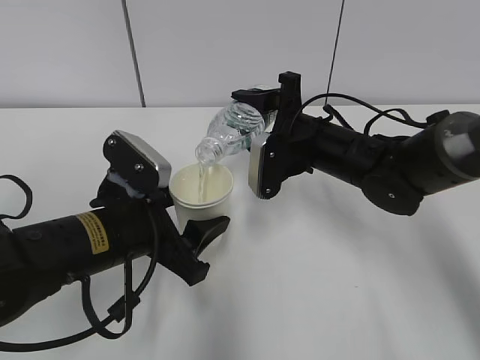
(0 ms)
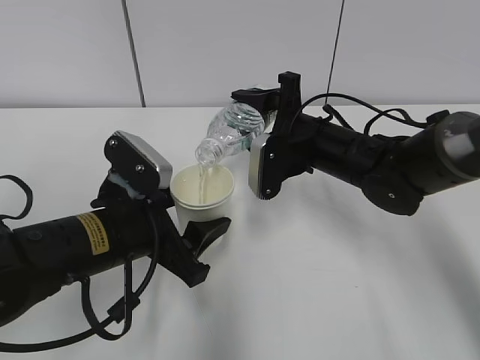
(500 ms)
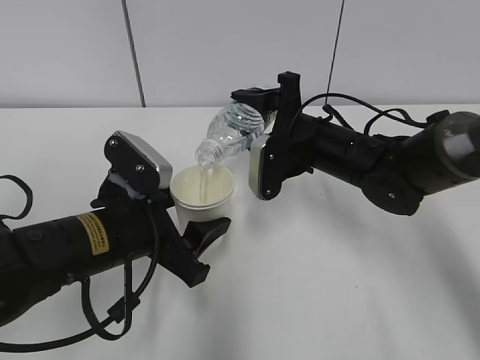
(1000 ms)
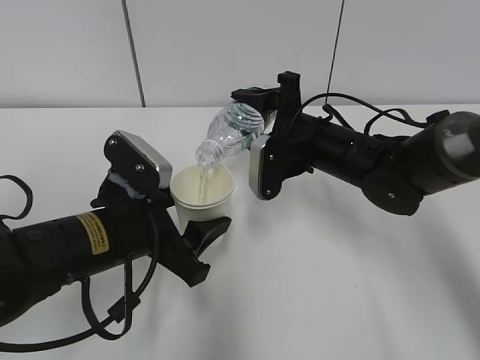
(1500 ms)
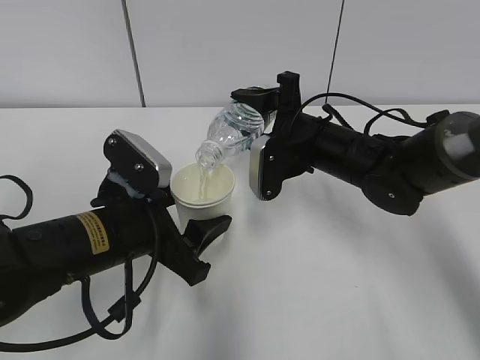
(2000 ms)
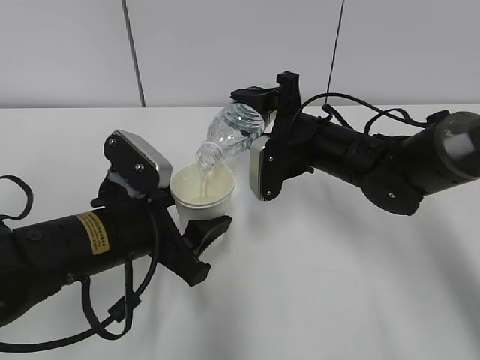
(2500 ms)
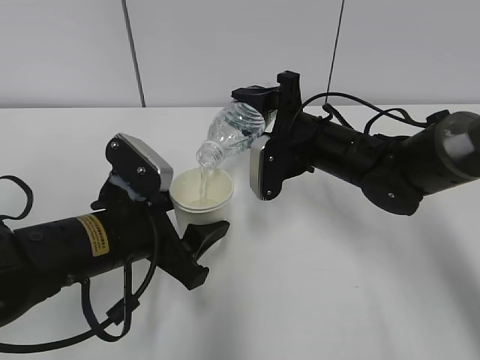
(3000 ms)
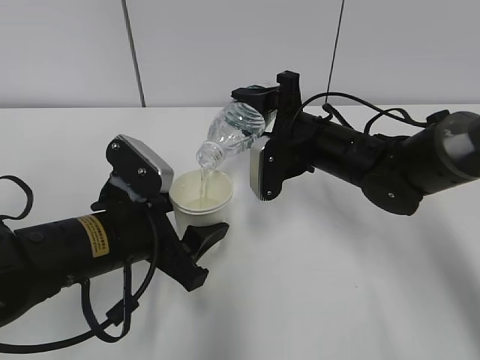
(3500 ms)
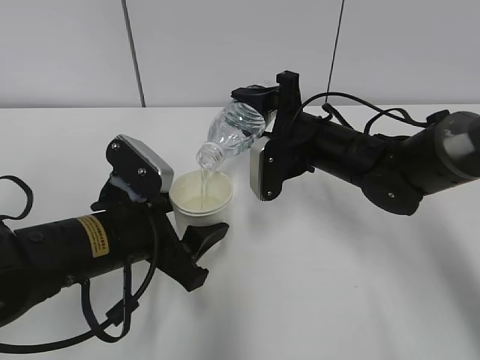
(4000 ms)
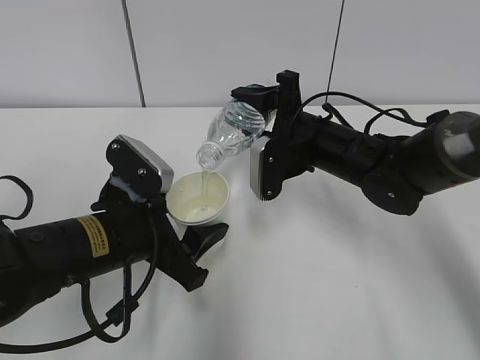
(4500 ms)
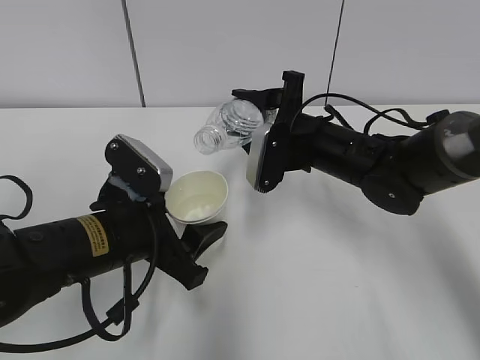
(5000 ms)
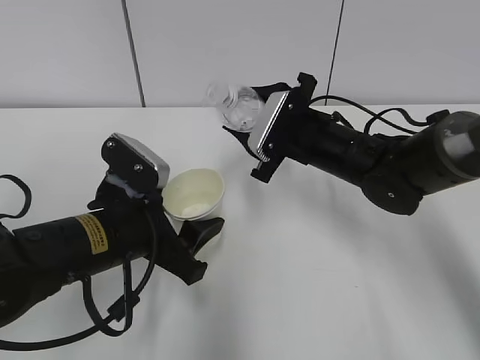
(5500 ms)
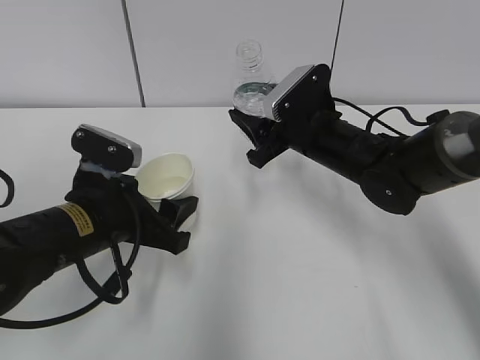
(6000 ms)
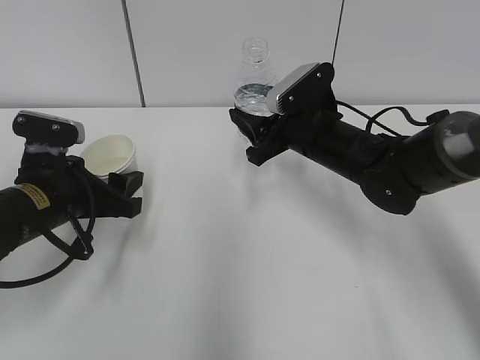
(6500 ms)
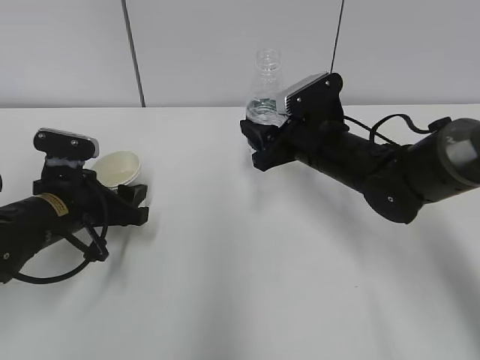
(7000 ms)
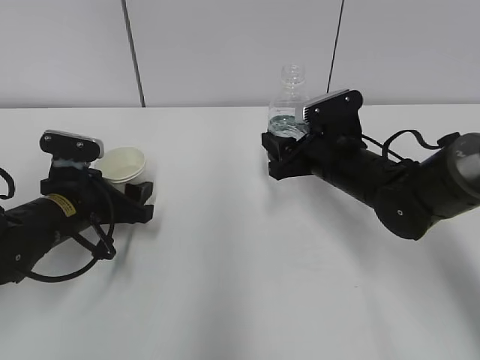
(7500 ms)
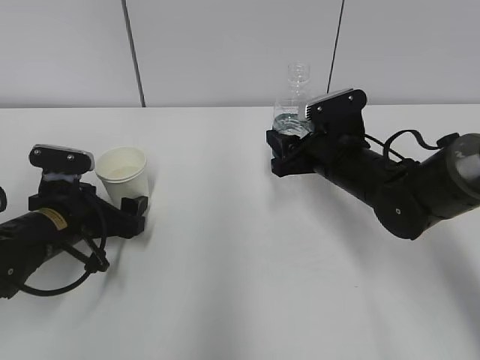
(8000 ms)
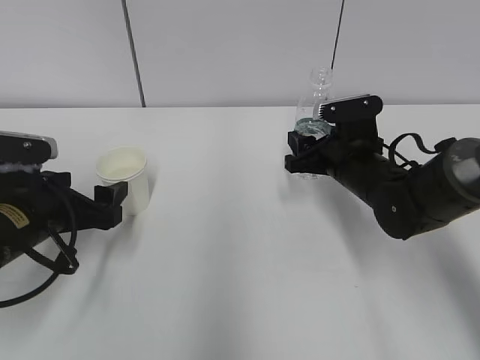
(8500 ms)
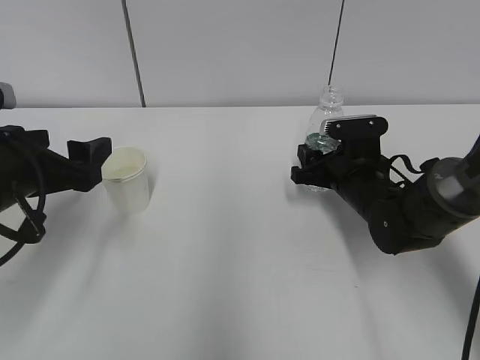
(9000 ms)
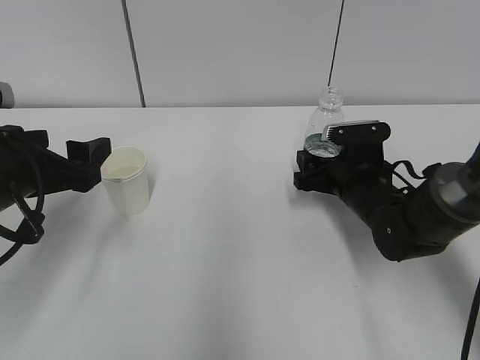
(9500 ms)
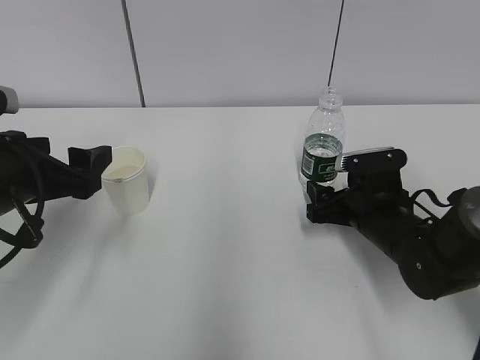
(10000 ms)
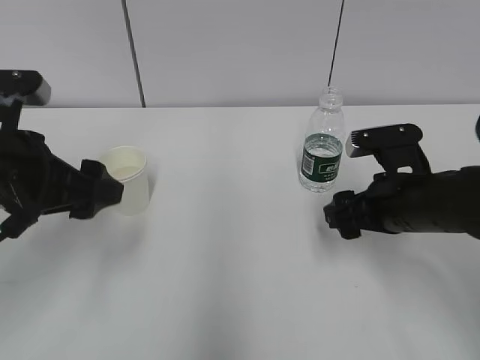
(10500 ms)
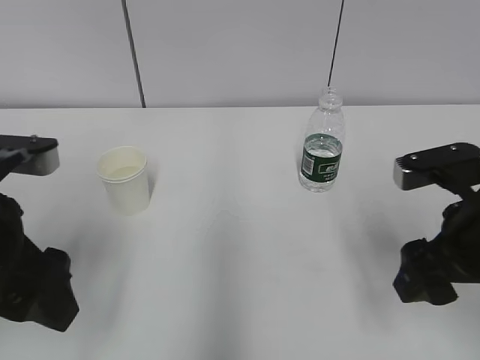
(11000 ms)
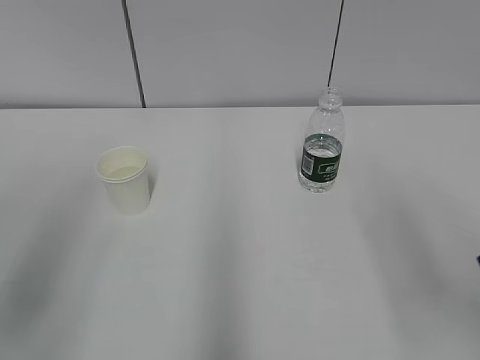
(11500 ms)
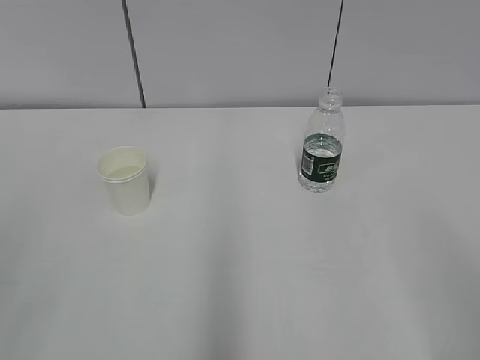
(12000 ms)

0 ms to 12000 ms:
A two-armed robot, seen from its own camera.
Step, 2500 ms to 3000 ms: Place the paper cup with the left hand.
0 ms to 2000 ms: Both grippers stay about where they are.
2000 ms to 4000 ms: The two grippers keep their place.
6000 ms to 8000 ms: The left gripper is displaced to the left, downward and forward by some 10 cm, and opens.
8000 ms to 10000 ms: The right gripper heads downward, covering approximately 5 cm, and opens up. Meanwhile the left gripper goes about 10 cm upward and backward.
10000 ms to 12000 ms: The left gripper moves backward, some 25 cm. The right gripper travels backward and upward by some 35 cm.

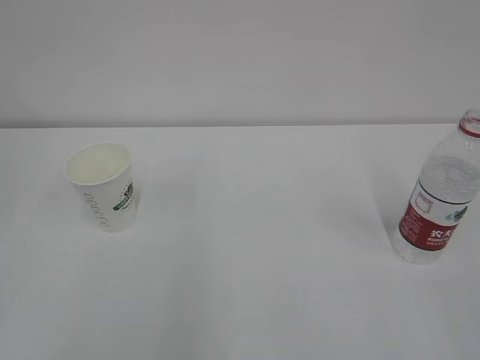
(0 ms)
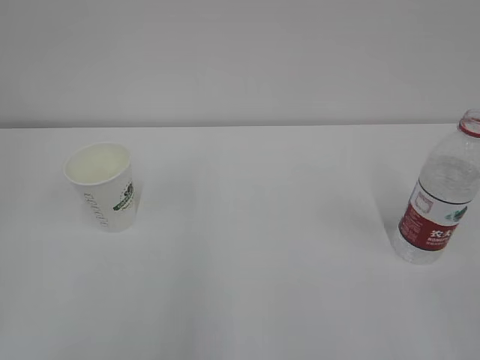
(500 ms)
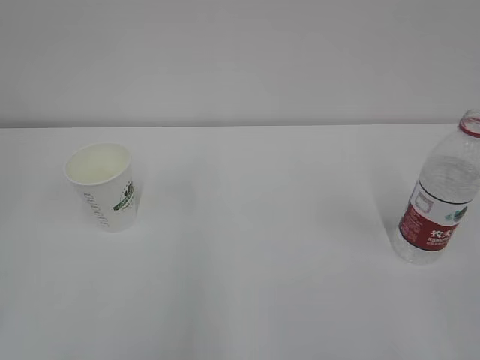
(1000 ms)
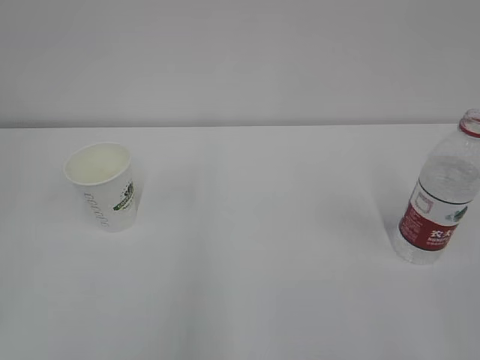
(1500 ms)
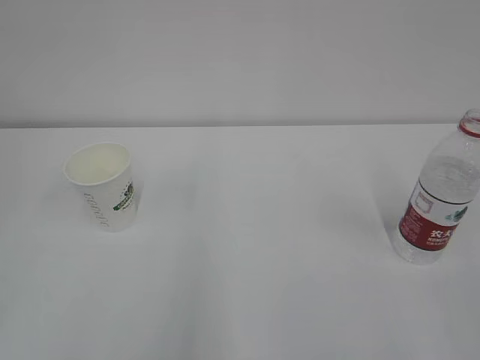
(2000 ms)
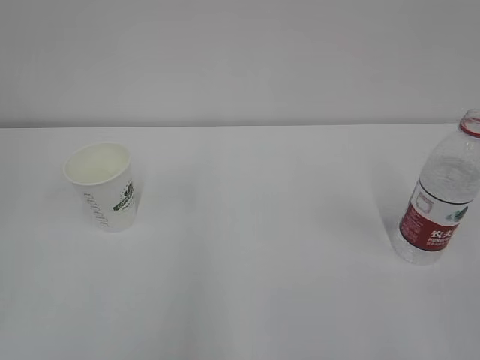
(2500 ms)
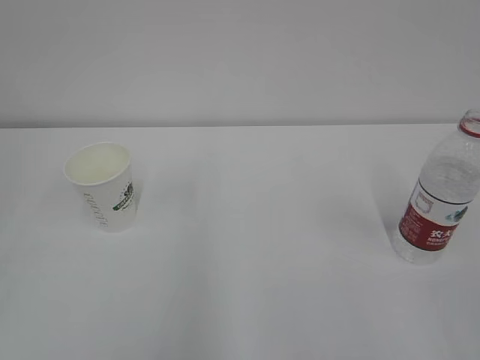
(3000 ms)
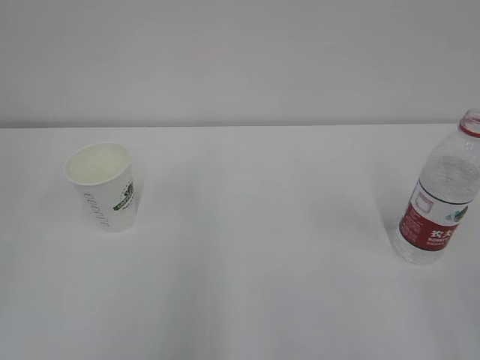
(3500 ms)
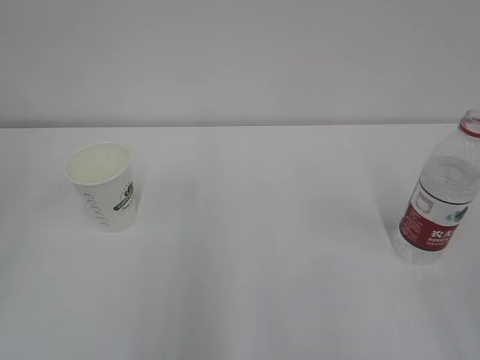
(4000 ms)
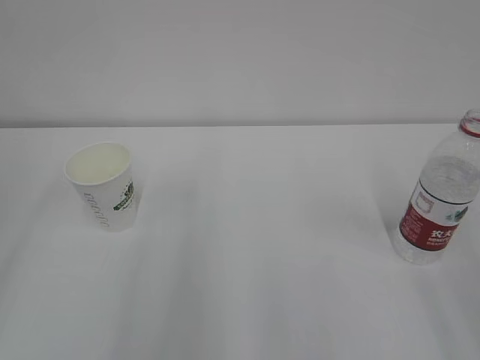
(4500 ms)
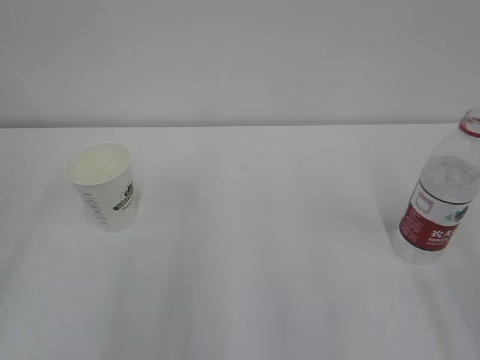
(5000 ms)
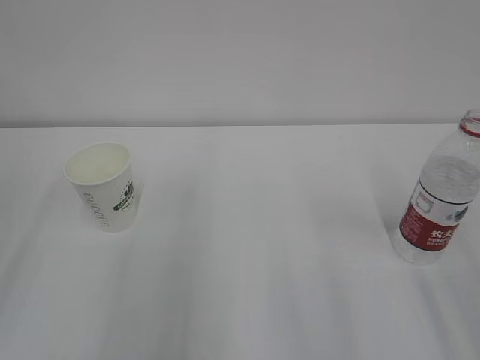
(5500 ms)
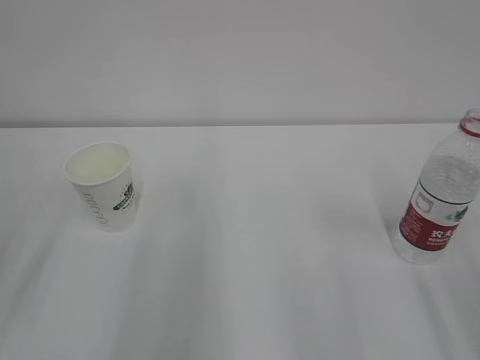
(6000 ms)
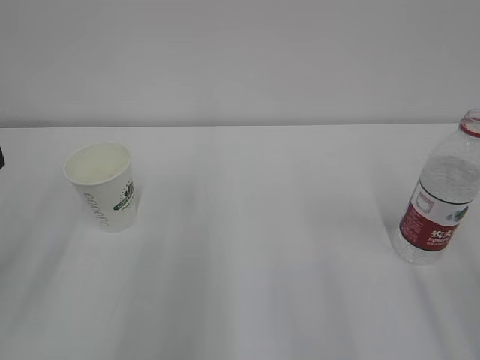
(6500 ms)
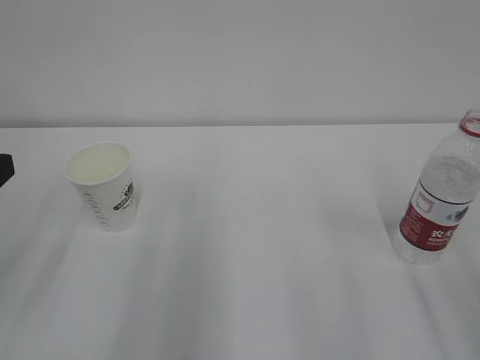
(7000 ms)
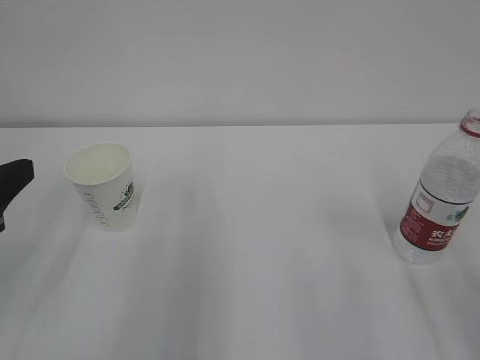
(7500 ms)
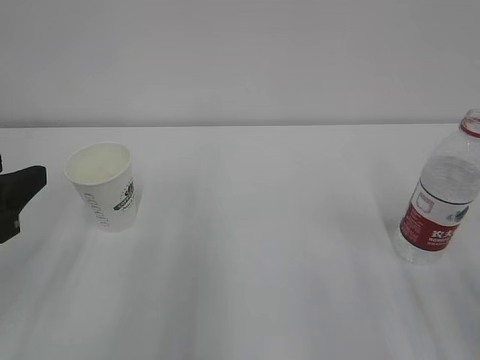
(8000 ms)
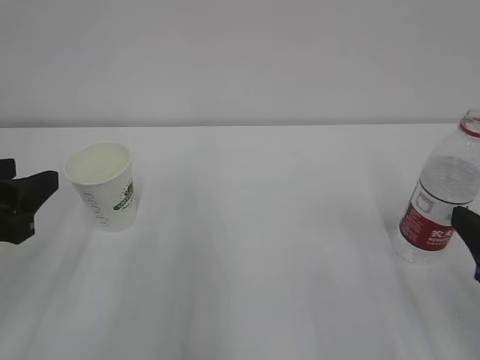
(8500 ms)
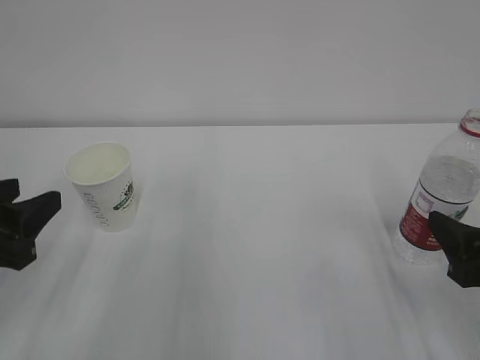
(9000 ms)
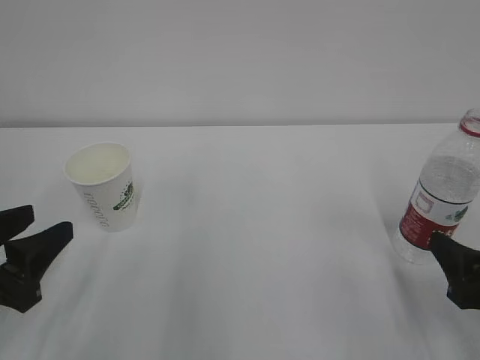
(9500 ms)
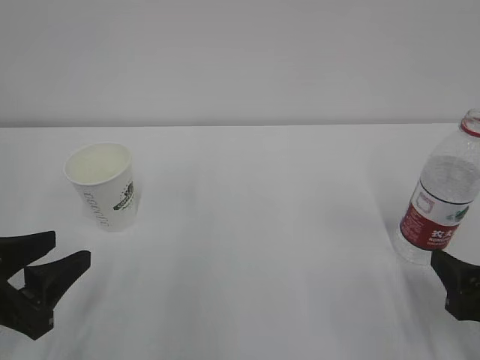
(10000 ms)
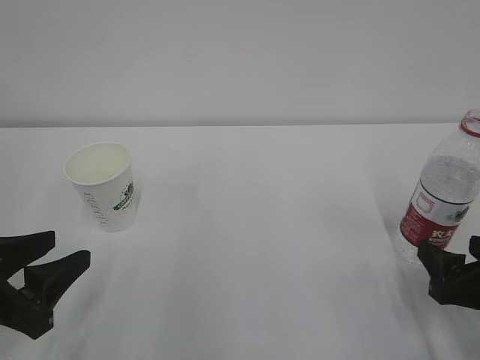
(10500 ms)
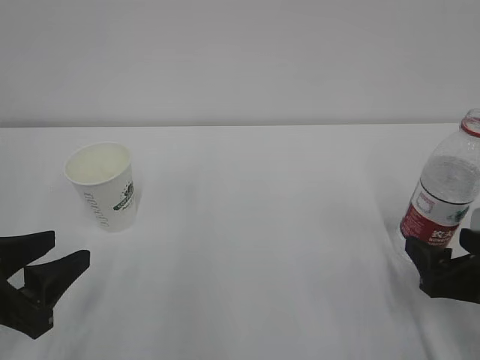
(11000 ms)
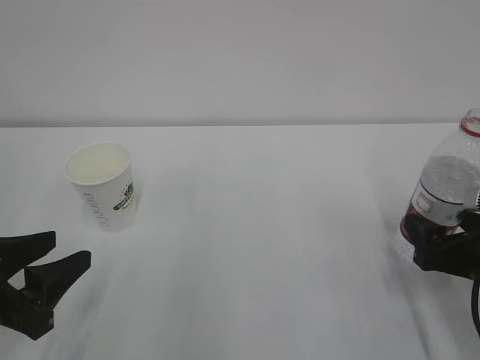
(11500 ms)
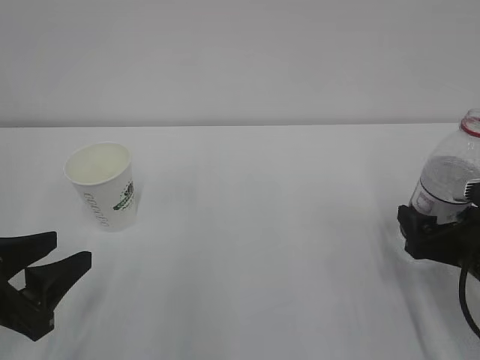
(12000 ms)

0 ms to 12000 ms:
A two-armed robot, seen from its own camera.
6000 ms to 8000 ms: The left gripper moves approximately 5 cm.
8000 ms to 10000 ms: Both grippers move downward, approximately 10 cm.
10000 ms to 12000 ms: The right gripper moves forward, about 10 cm.

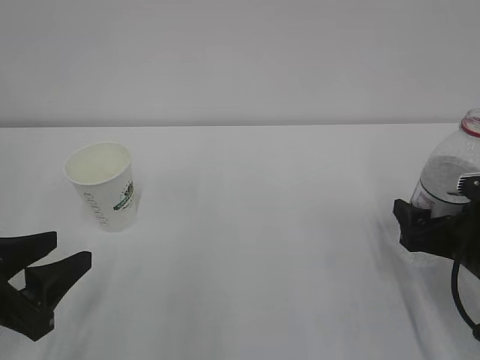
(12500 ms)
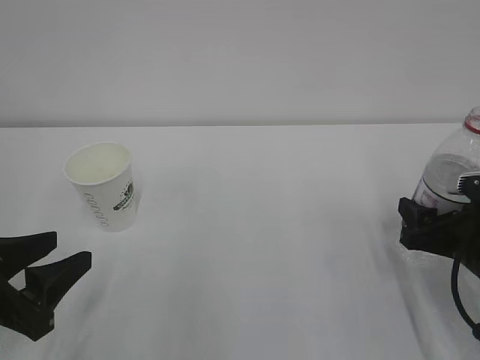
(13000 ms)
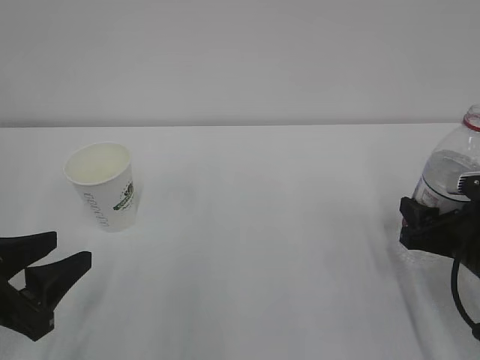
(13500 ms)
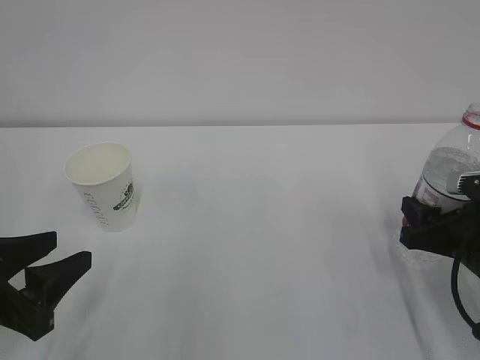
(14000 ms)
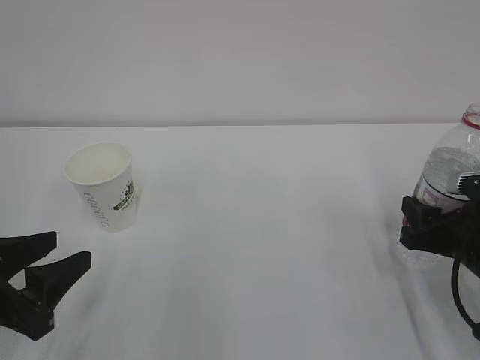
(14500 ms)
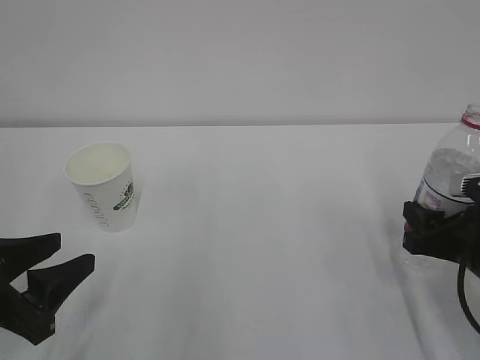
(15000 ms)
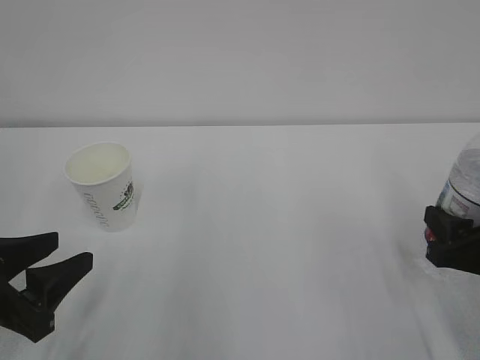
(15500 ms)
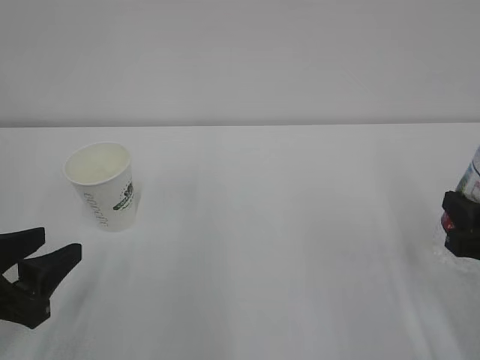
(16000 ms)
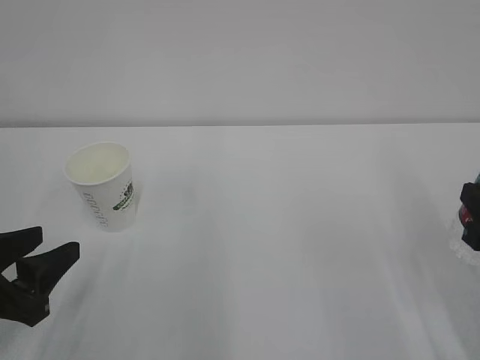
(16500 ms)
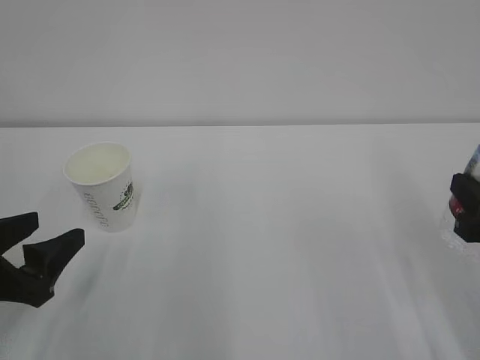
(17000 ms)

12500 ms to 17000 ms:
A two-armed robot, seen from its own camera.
12500 ms to 14500 ms: The right gripper closes.
14500 ms to 17000 ms: The left gripper opens. Meanwhile the right gripper goes about 10 cm upward and backward.
